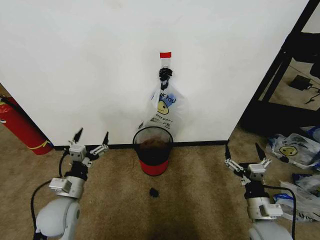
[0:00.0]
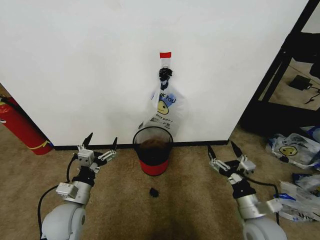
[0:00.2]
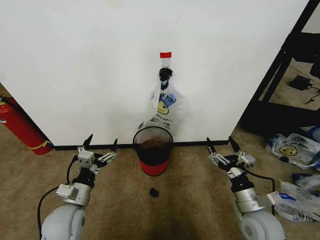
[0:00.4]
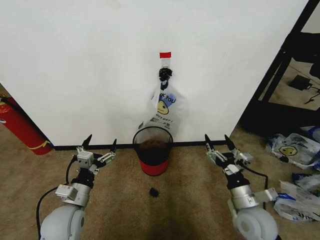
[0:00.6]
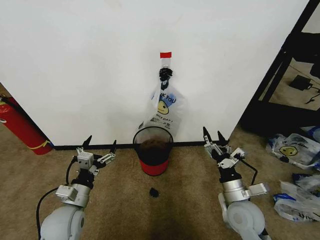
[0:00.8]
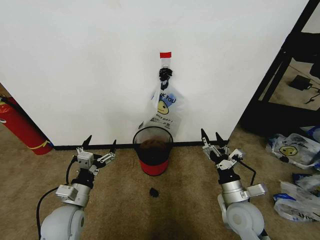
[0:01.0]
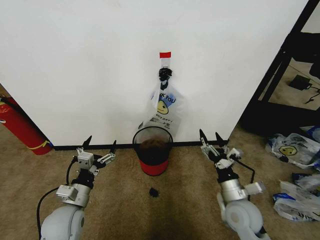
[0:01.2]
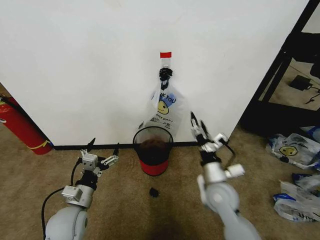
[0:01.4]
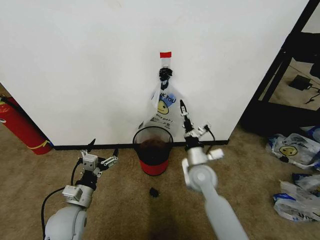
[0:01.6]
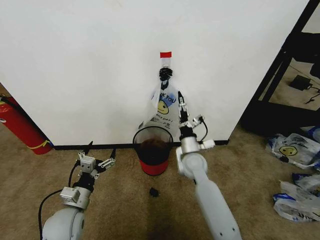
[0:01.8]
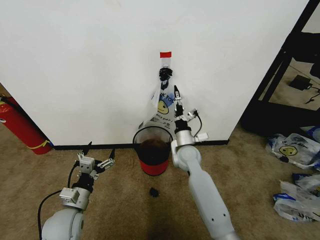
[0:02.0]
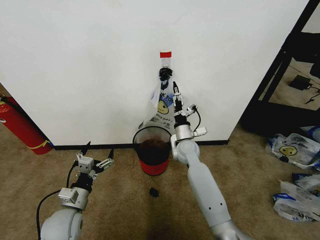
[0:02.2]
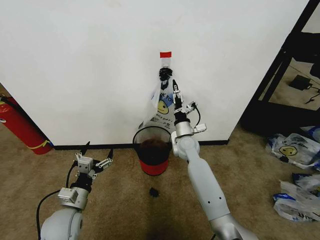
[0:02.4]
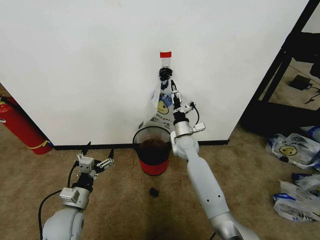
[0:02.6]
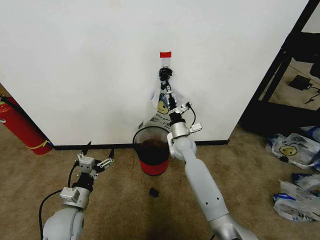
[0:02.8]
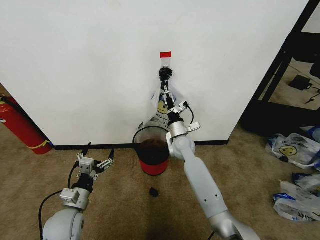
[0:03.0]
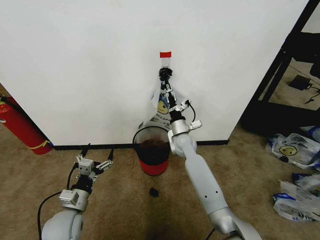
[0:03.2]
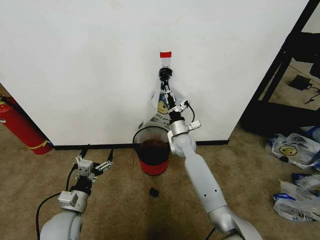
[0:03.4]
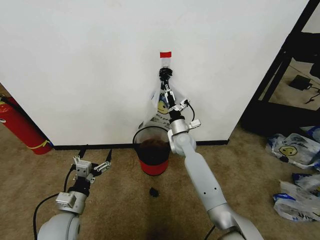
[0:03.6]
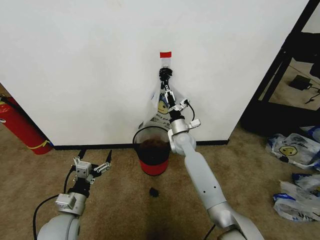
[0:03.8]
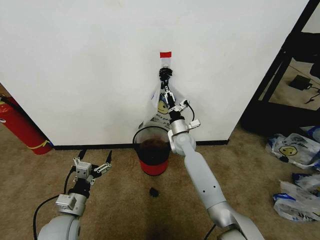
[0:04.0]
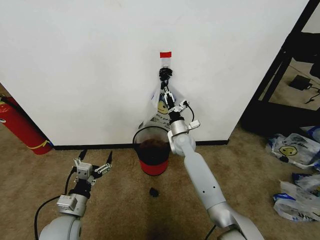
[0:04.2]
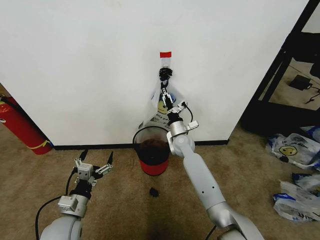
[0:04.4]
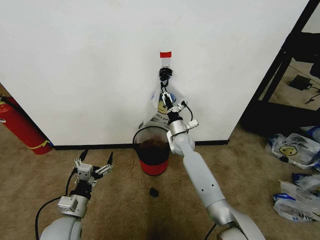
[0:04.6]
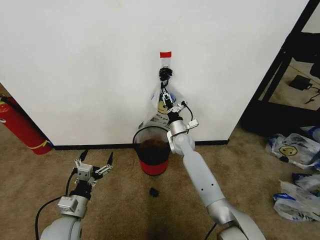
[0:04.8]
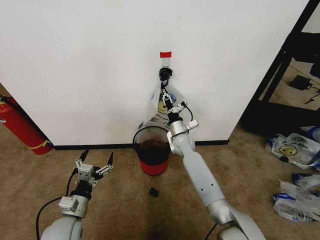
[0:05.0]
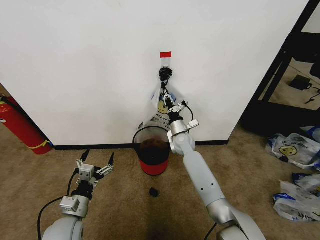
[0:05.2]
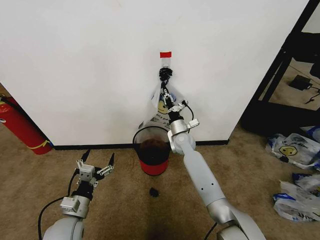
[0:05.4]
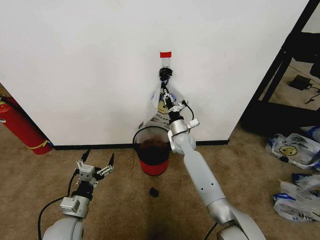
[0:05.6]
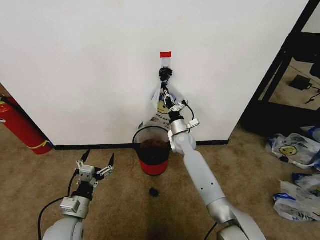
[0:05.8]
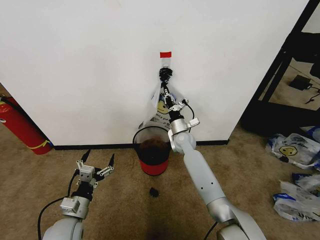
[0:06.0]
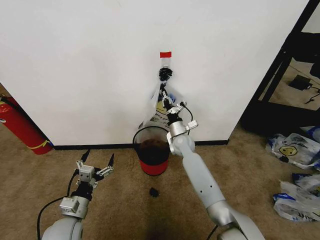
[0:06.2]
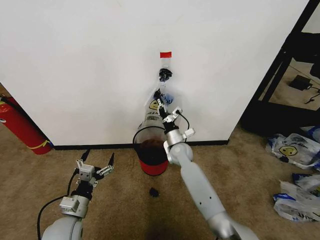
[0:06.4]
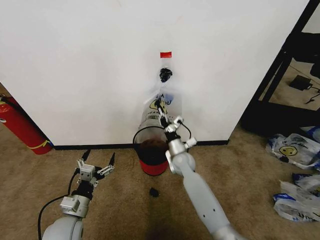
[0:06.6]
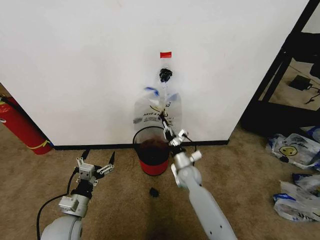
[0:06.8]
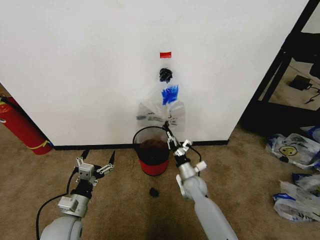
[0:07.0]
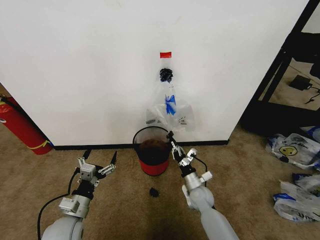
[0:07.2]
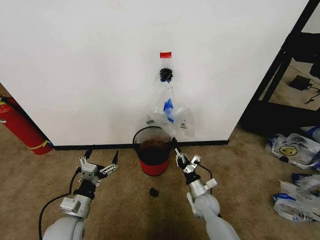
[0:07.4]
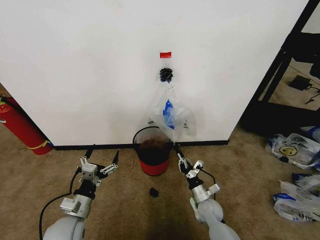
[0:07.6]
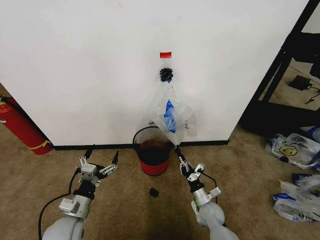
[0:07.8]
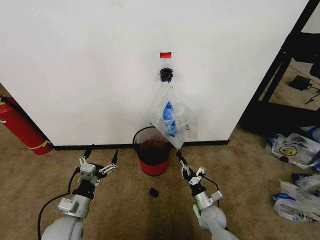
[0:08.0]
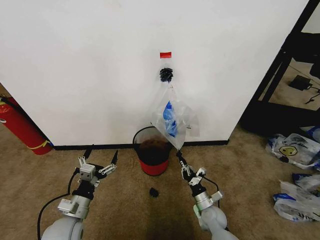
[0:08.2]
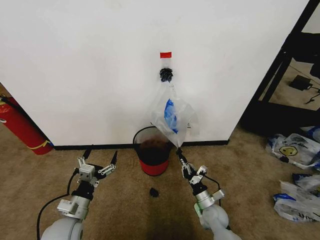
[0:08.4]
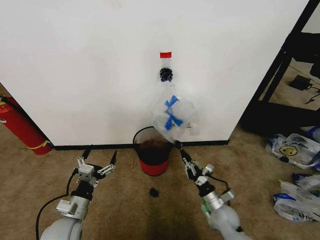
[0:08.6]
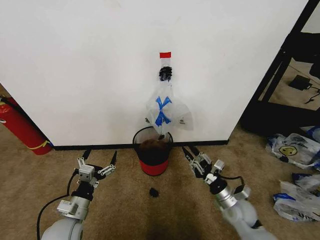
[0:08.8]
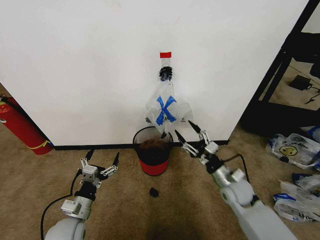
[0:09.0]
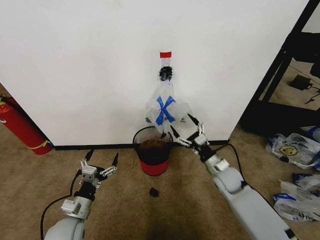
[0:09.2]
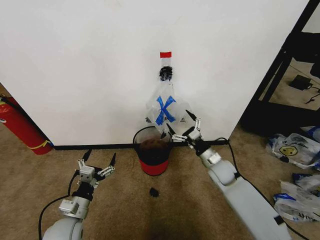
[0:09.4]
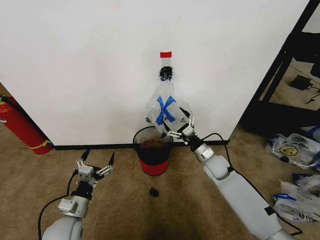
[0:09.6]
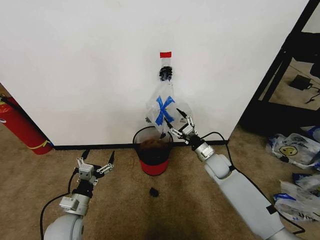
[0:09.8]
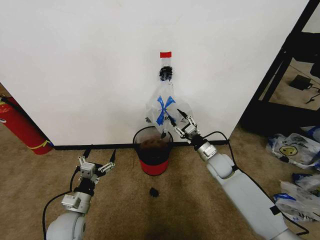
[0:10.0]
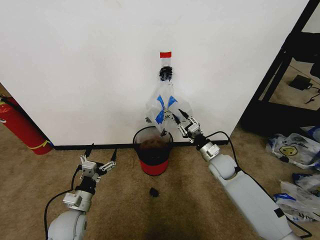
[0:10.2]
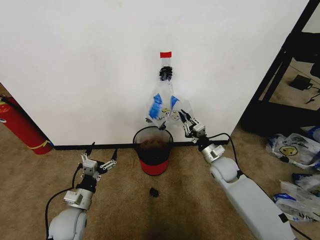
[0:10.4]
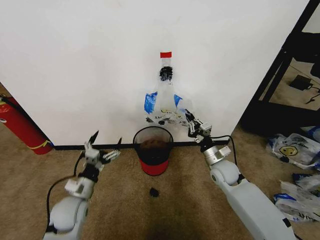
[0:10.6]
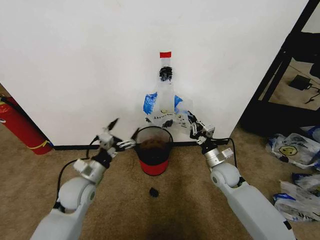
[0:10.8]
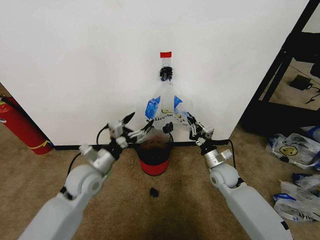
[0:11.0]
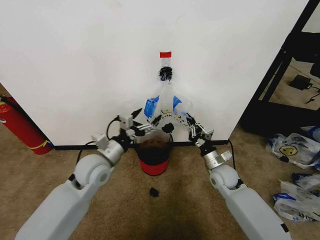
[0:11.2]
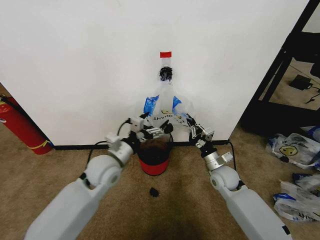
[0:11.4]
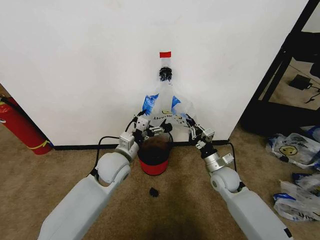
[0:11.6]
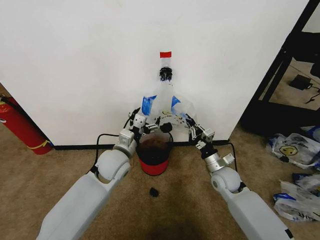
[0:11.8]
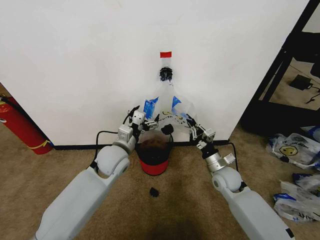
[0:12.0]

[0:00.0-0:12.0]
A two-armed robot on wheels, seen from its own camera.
Task of the whole recording: Pick up the garbage bag from the wall and place it over the trash bin.
0:01.6 to 0:03.0: The right gripper moves forward and to the left, roughly 15 cm.
0:03.0 to 0:04.4: The right gripper closes.
0:04.4 to 0:06.0: The right gripper closes up.
0:06.0 to 0:07.6: The right gripper heads backward, downward and to the right, covering approximately 30 cm.
0:07.6 to 0:09.0: The right gripper goes some 15 cm upward and to the right, and opens up.
0:09.0 to 0:10.4: The right gripper moves forward, roughly 10 cm, and closes up.
0:10.4 to 0:12.0: The left gripper is displaced forward, upward and to the right by roughly 25 cm.

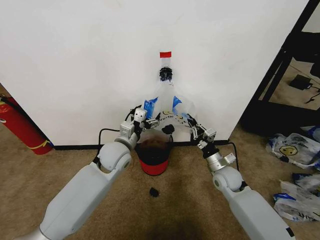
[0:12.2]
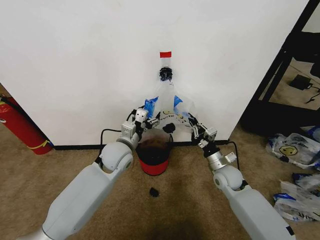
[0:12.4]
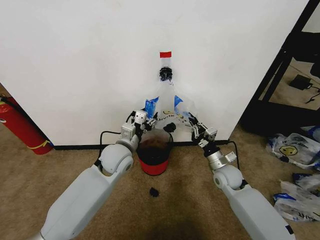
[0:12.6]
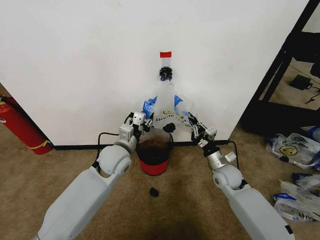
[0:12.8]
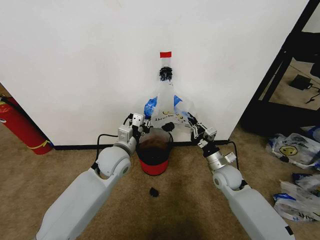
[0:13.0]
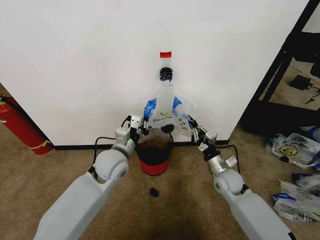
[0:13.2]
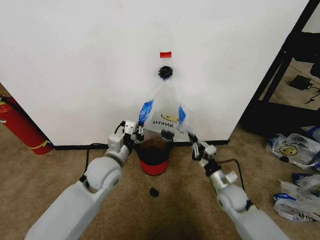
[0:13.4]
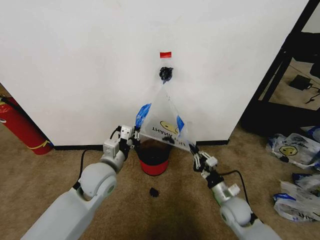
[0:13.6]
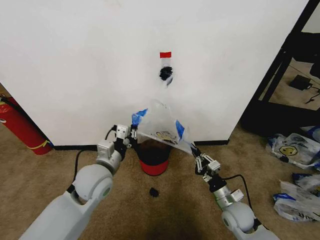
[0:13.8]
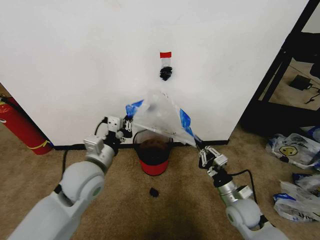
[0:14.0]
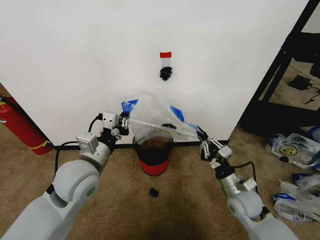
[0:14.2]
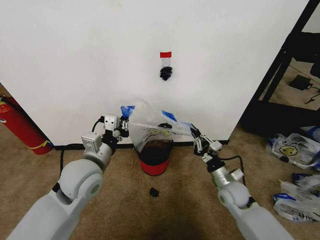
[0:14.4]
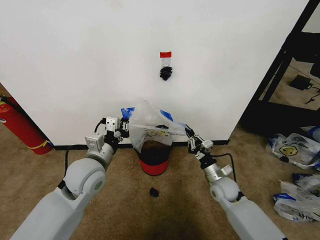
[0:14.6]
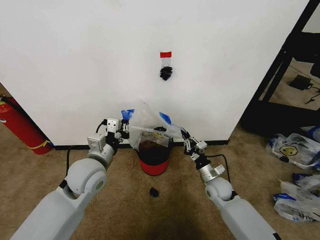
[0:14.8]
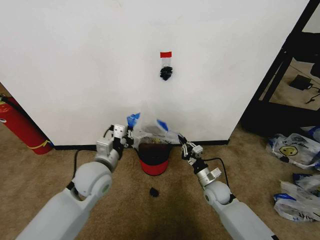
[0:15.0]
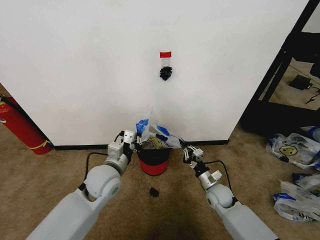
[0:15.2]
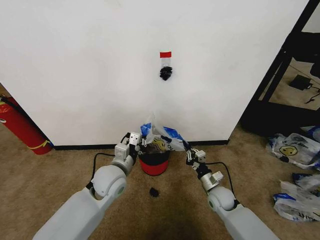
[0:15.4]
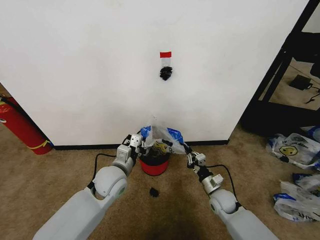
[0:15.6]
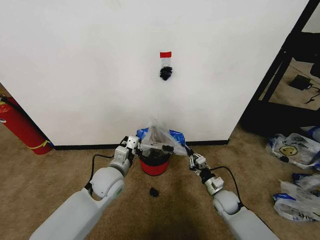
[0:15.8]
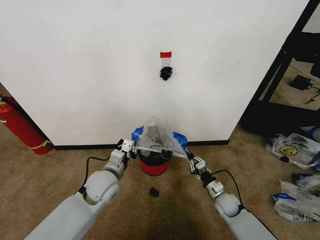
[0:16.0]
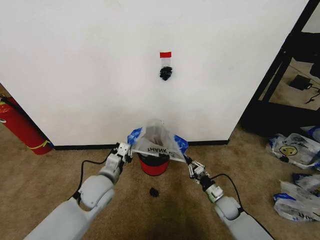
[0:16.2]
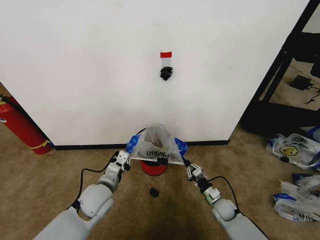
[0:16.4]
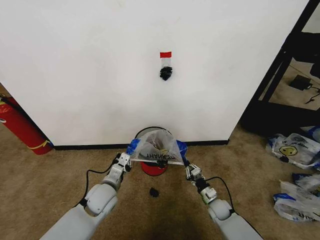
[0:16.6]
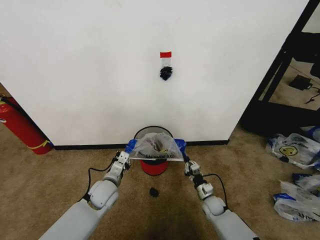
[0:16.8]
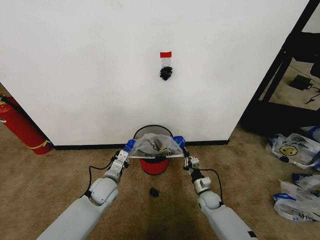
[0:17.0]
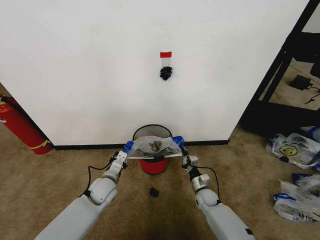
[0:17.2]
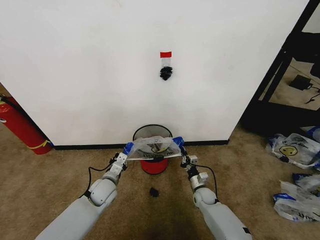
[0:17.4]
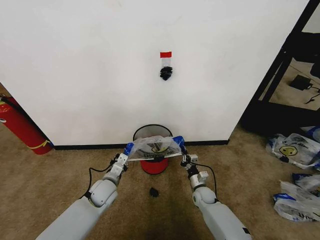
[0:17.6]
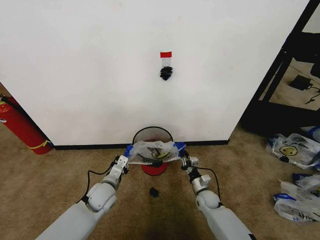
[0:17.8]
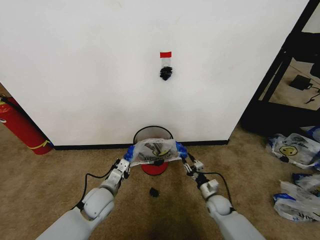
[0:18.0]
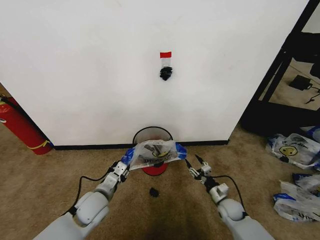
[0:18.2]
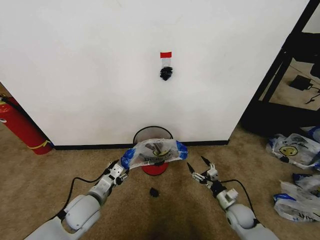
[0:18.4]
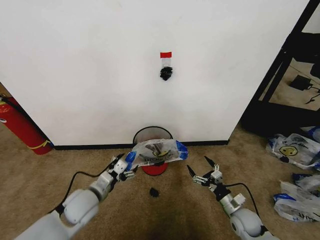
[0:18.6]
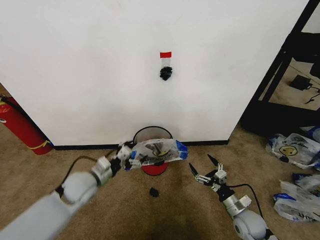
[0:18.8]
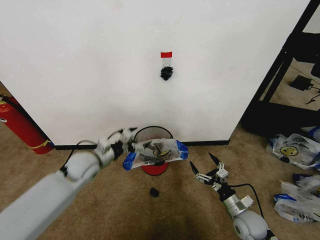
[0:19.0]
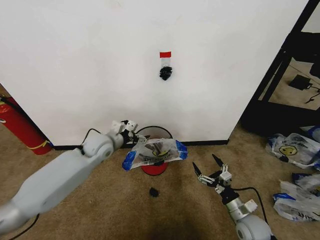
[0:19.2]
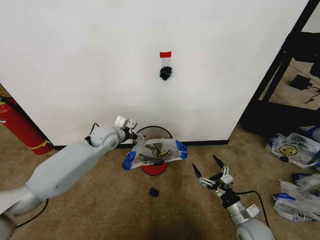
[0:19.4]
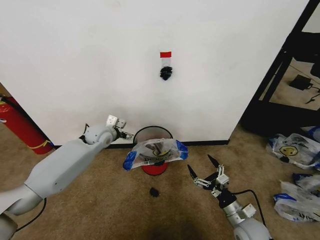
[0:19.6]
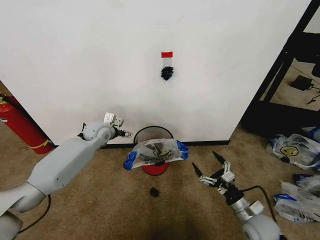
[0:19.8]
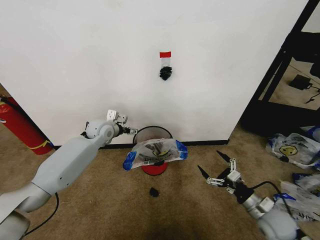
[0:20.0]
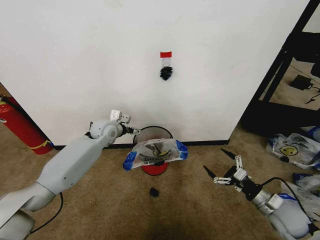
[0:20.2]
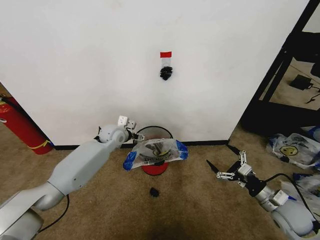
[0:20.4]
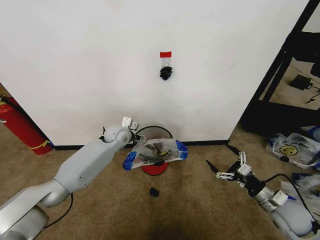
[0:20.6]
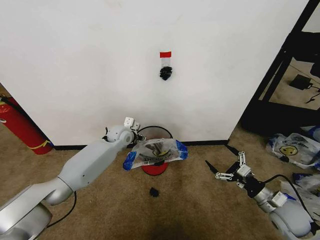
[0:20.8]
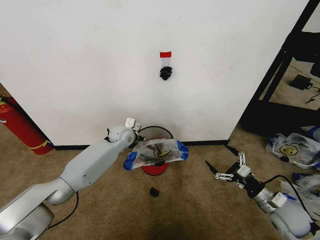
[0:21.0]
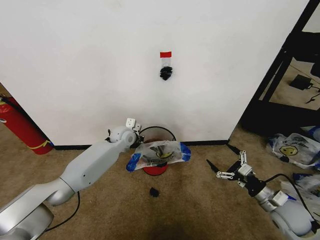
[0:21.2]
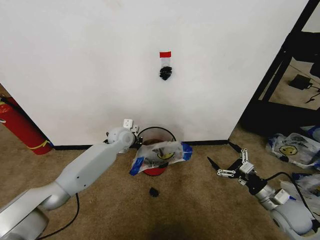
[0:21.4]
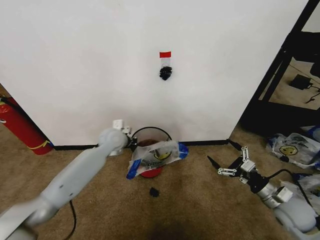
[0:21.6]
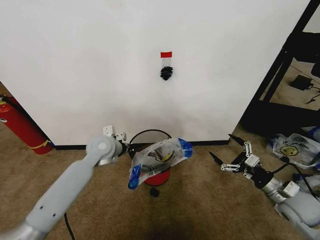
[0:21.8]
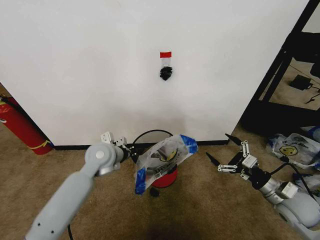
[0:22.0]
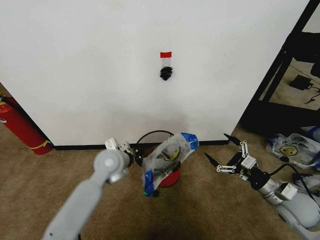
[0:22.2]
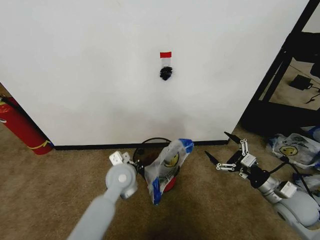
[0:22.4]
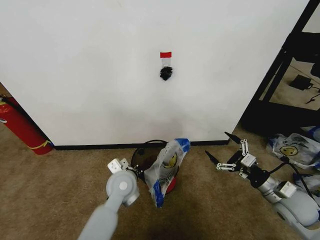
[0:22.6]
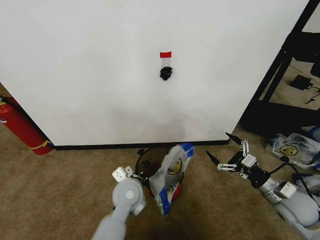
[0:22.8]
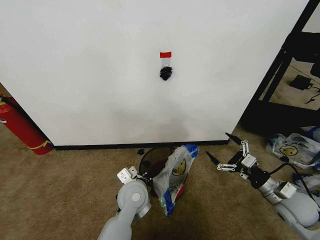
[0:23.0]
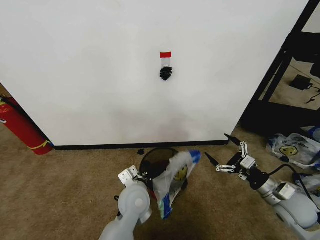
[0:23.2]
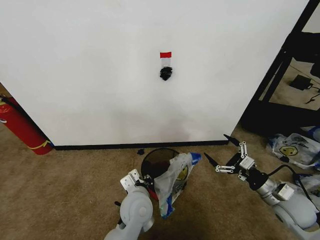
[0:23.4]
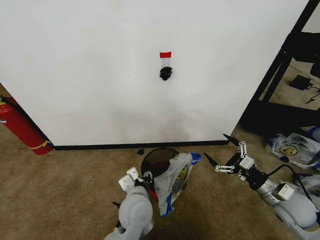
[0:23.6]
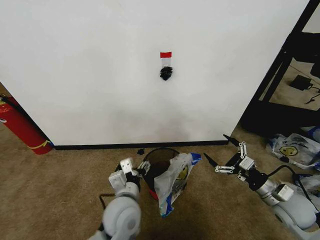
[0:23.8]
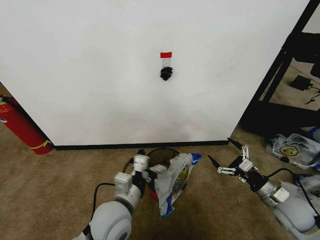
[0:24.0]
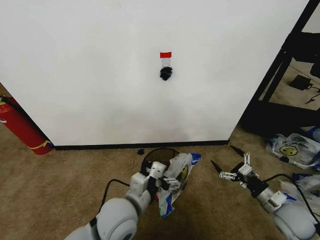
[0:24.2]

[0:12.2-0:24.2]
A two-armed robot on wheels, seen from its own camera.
Task of the whole recording: Pick up the garbage bag from the wall and place it over the trash bin.
0:12.2 to 0:13.8: Both grippers move backward, approximately 10 cm. The left gripper closes.
0:13.8 to 0:15.2: The right gripper shifts roughly 10 cm forward.
0:15.2 to 0:16.6: The two grippers go roughly 10 cm downward.
0:16.6 to 0:18.2: The right gripper travels to the left and back again, approximately 5 cm each way, and opens up; the left gripper opens up.
0:18.2 to 0:19.8: The right gripper goes some 15 cm upward and backward, and opens. The left gripper is displaced forward and upward by roughly 25 cm, and opens its fingers.
0:19.8 to 0:21.2: The grippers both shift to the right by about 10 cm. The left gripper closes.
0:21.2 to 0:22.6: The left gripper heads backward, covering approximately 20 cm. Meanwhile the right gripper is displaced upward by about 5 cm.
0:22.6 to 0:24.2: The right gripper moves roughly 5 cm. The left gripper shifts approximately 10 cm backward, and opens its fingers.
